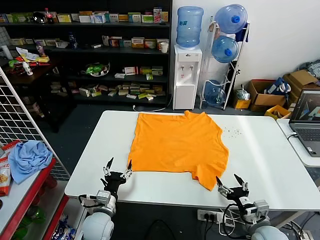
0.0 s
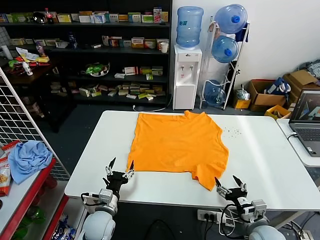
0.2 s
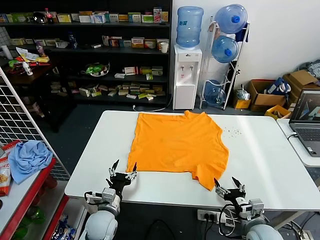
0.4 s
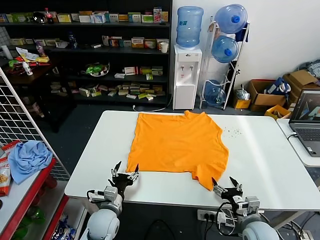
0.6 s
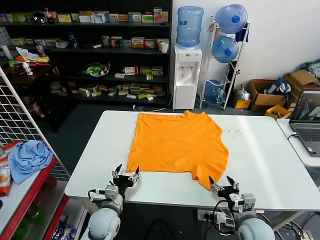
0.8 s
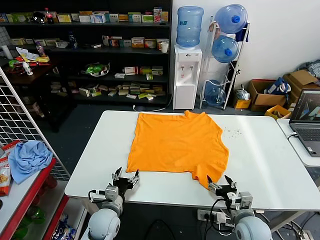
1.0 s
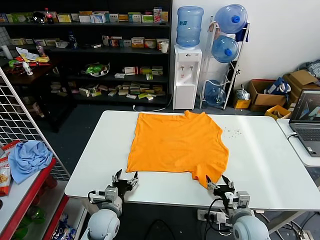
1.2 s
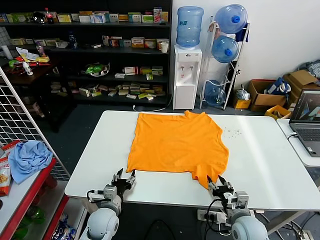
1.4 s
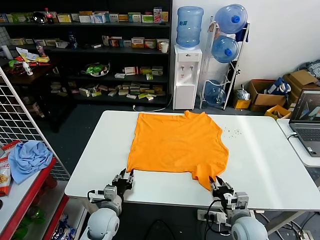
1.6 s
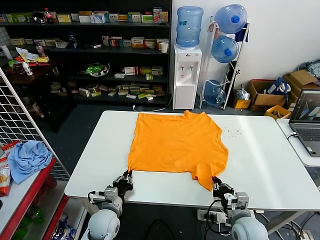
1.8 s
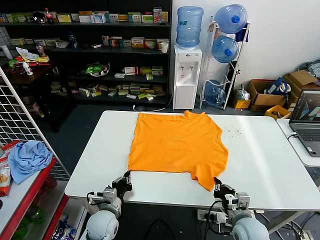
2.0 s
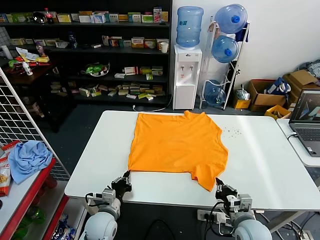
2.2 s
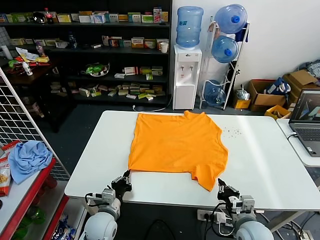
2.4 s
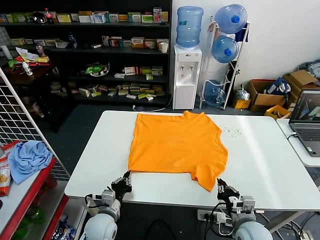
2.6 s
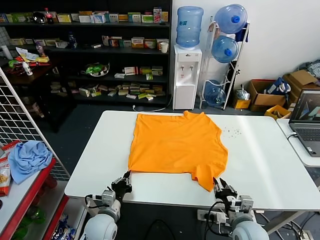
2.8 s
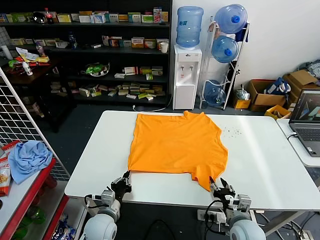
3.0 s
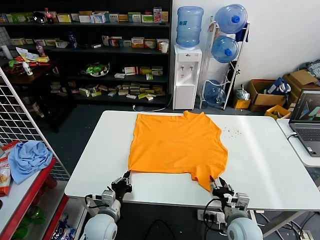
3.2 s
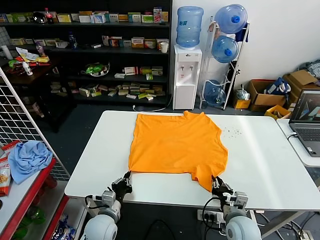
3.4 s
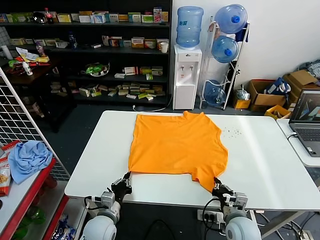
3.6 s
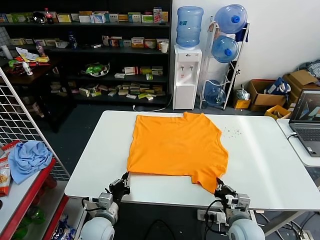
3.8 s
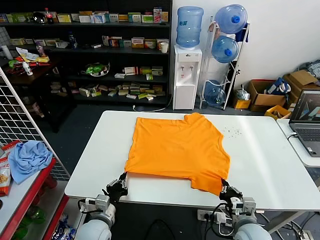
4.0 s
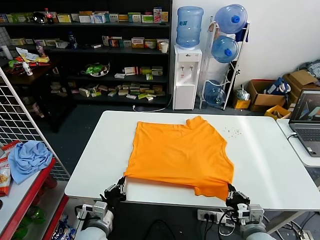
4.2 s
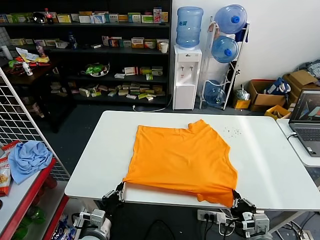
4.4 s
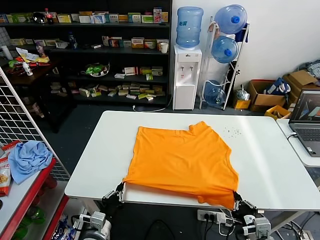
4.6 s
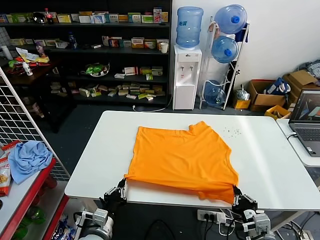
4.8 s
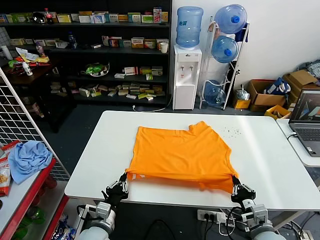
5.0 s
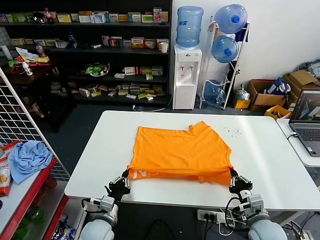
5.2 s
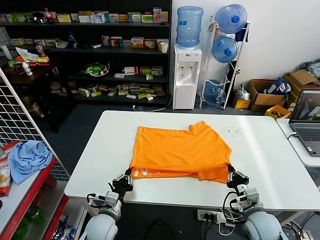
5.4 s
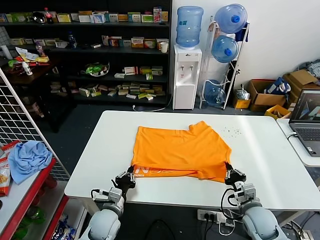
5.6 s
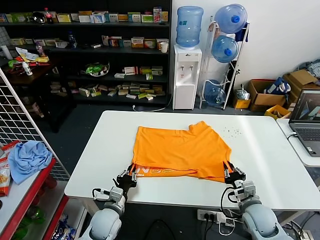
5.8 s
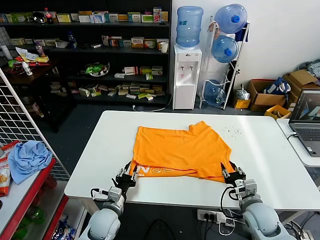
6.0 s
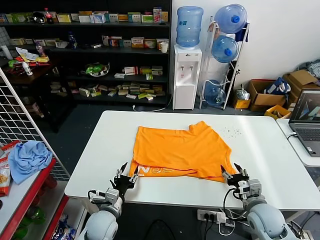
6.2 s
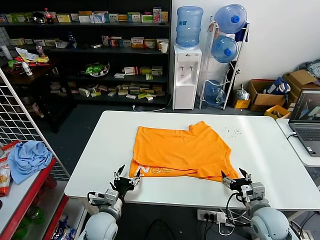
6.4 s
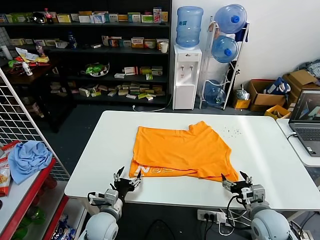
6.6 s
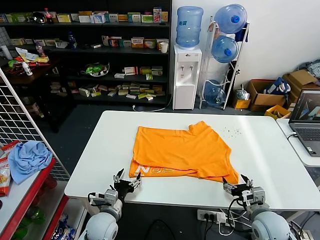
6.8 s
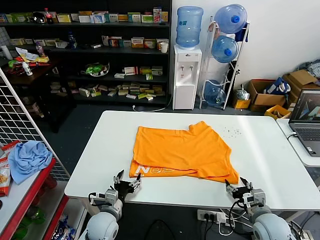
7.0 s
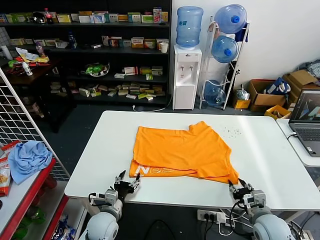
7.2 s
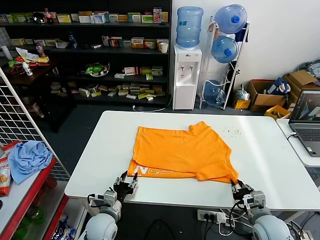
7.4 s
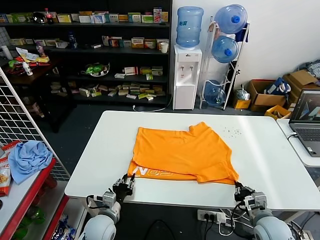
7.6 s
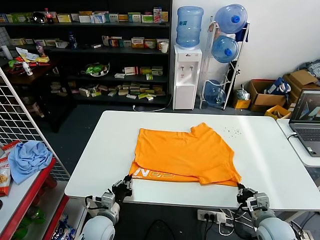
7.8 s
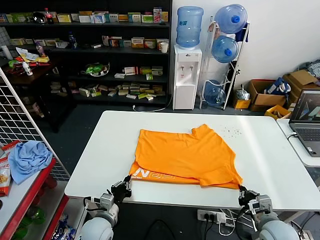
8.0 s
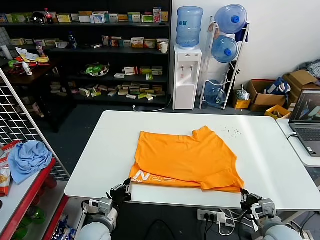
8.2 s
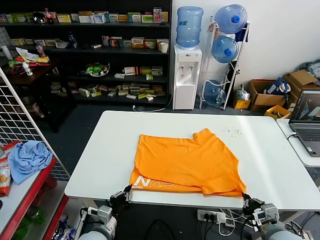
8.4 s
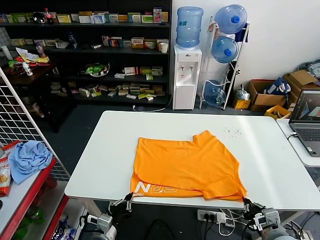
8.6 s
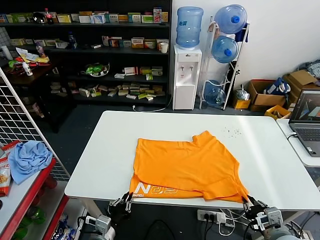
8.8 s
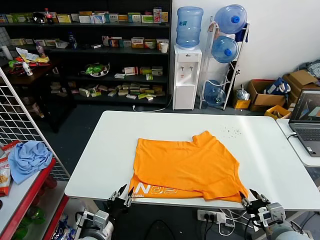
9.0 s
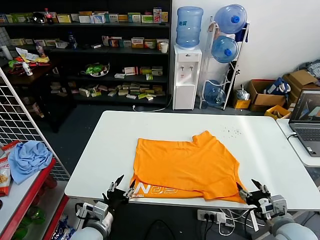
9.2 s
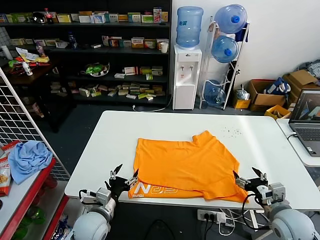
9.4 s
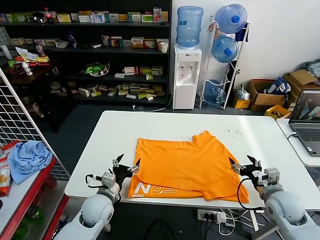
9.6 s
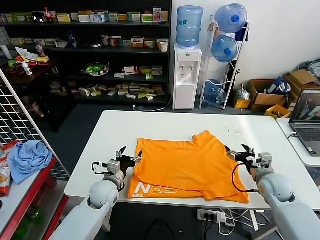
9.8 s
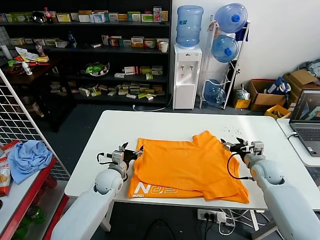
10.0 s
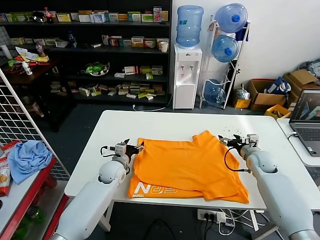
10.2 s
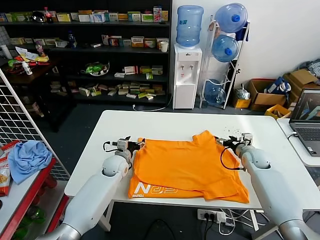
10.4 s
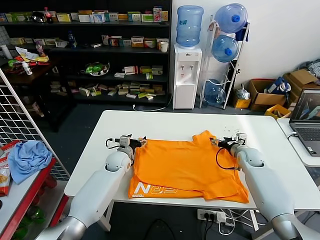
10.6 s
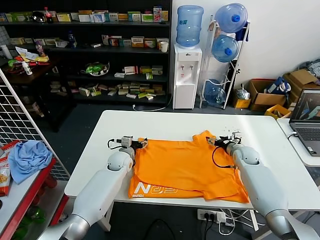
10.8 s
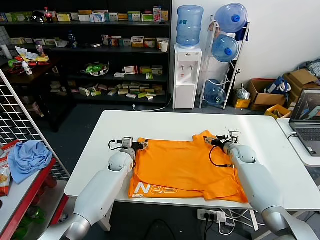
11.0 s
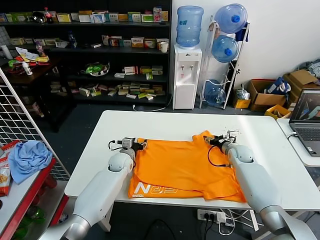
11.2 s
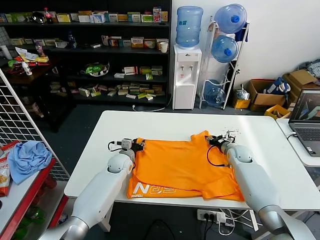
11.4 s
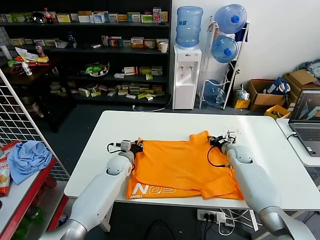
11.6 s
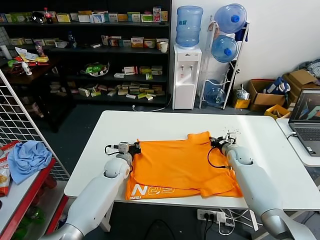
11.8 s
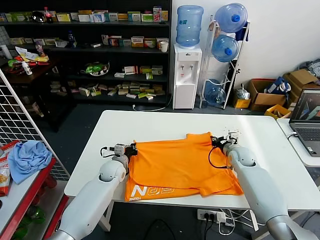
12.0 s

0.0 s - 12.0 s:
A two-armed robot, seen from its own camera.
Task of the whole recording: fold and organize the clothes.
Step, 0.0 s - 3.8 s: use both grippers simultaneously to clamp the lower edge of the clothing fabric.
Step, 4.2 s - 6.2 s: use both grippers to drag the lower edge of the fabric forward and fold it over the upper edge.
Step, 6.4 s - 9.2 s: Drag the clothes downward with both gripper.
Step, 9.4 s - 11.8 s: use both grippers simultaneously to clamp the upper edge of the clothing fabric.
1.6 s - 3.0 s: The right gripper opens its fingers; the left gripper closes up.
3.0 s - 4.4 s: The two grippers go some 10 cm backward. The right gripper closes.
4.4 s - 6.0 s: Both grippers travel together forward, about 10 cm. The left gripper opens its fingers; the right gripper opens up.
6.0 s - 7.6 s: The left gripper opens and closes again. Meanwhile the right gripper closes.
7.6 s - 9.0 s: The left gripper heads backward, covering roughly 10 cm, and closes and opens again. Meanwhile the right gripper goes about 10 cm upward and backward, and opens up.
9.0 s - 10.4 s: The grippers both shift forward by roughly 30 cm. The left gripper opens its fingers. The right gripper opens up.
10.4 s - 12.0 s: The left gripper closes. Meanwhile the right gripper closes.

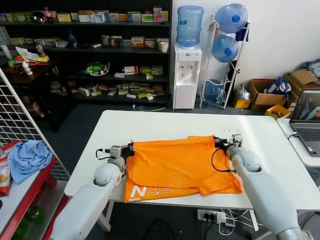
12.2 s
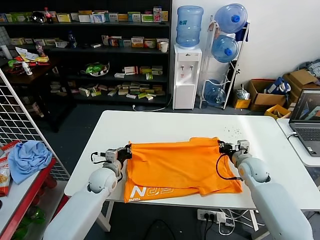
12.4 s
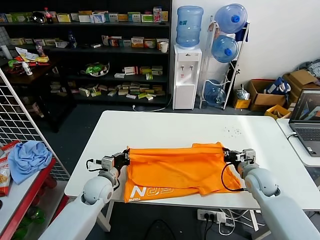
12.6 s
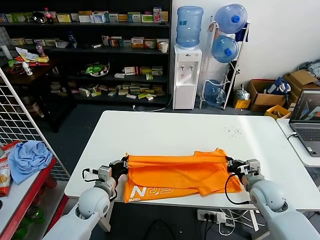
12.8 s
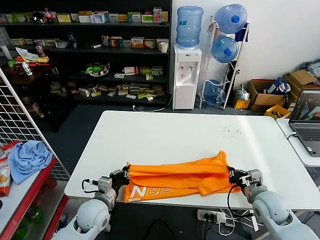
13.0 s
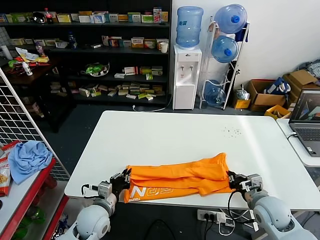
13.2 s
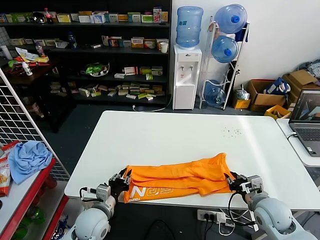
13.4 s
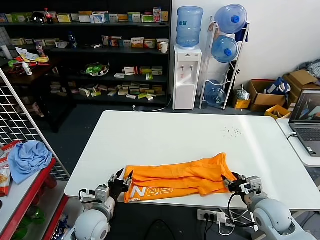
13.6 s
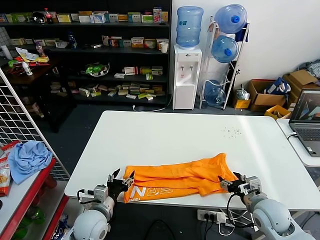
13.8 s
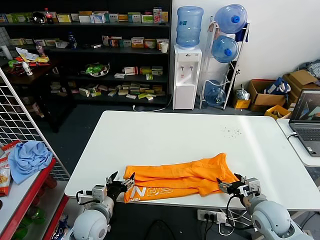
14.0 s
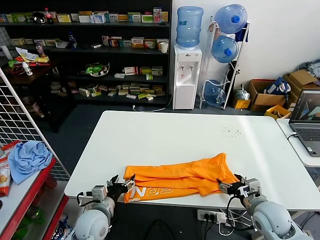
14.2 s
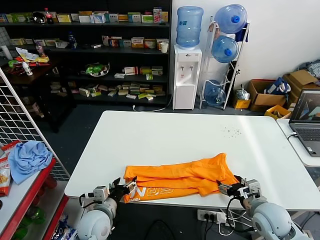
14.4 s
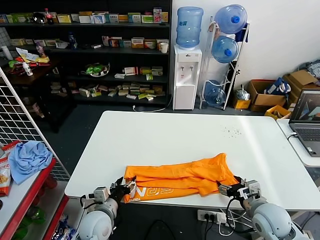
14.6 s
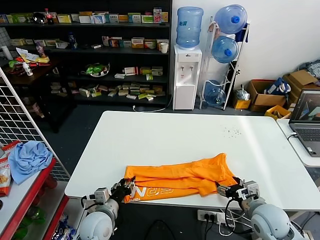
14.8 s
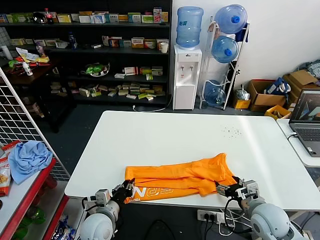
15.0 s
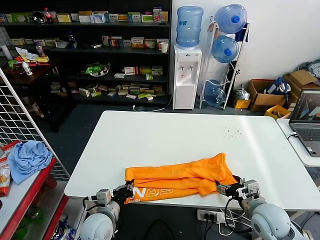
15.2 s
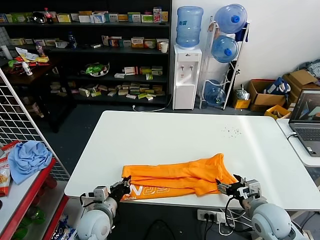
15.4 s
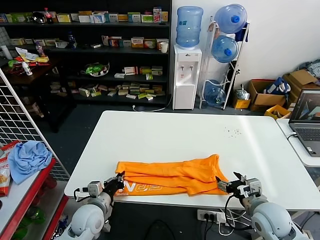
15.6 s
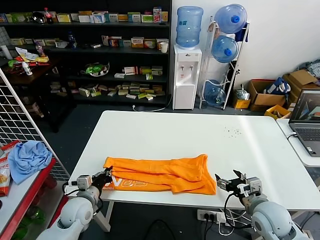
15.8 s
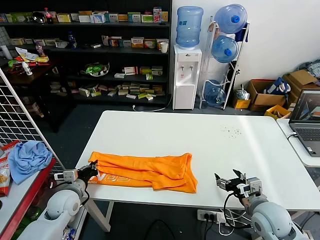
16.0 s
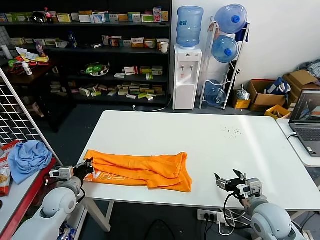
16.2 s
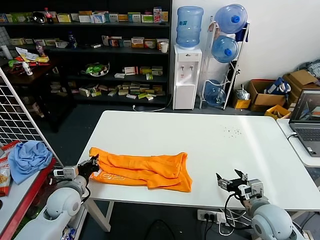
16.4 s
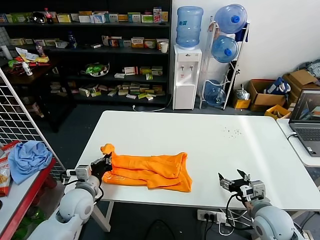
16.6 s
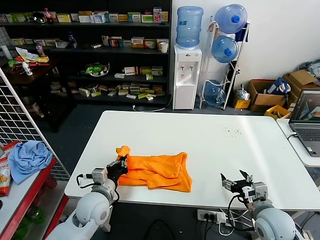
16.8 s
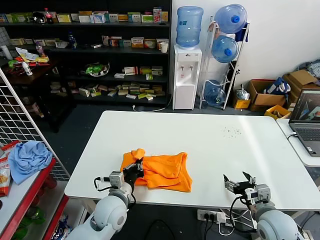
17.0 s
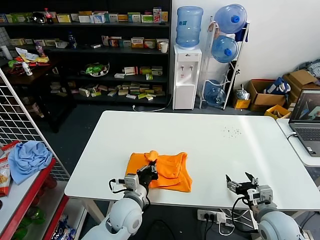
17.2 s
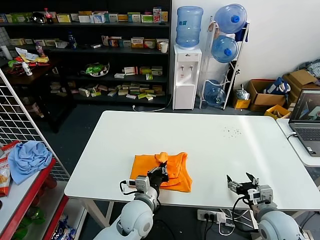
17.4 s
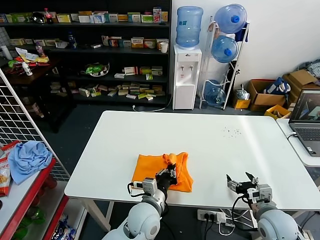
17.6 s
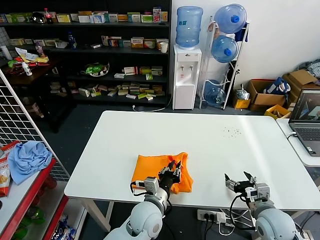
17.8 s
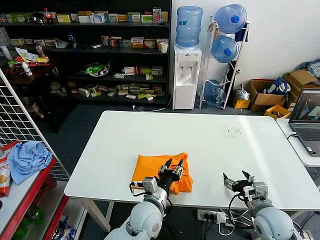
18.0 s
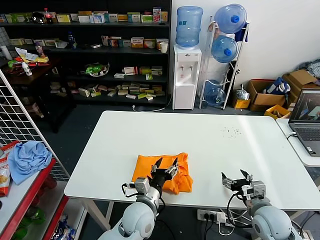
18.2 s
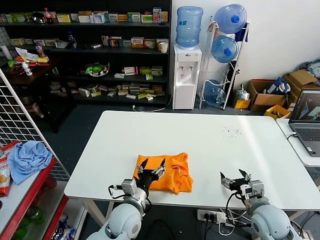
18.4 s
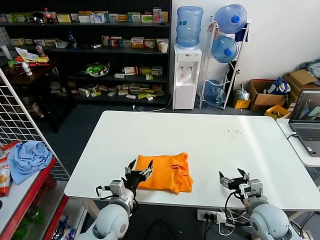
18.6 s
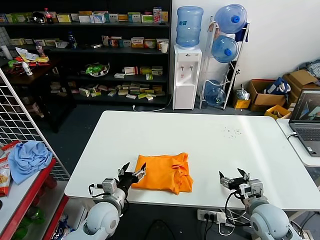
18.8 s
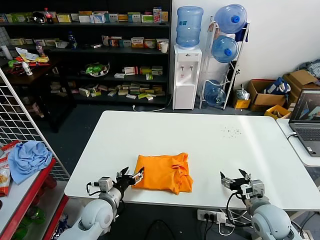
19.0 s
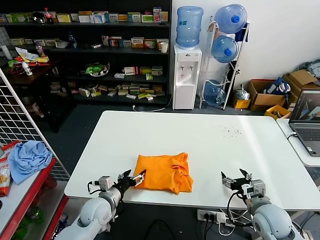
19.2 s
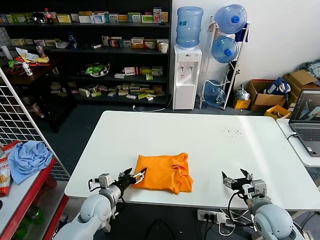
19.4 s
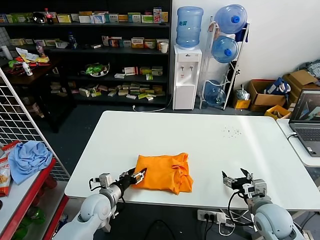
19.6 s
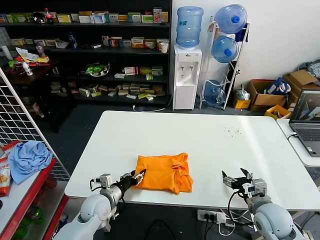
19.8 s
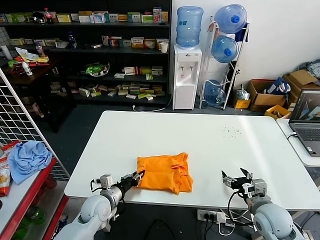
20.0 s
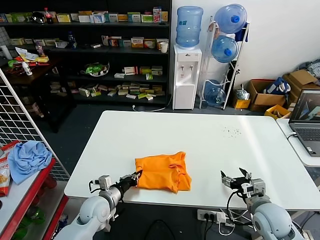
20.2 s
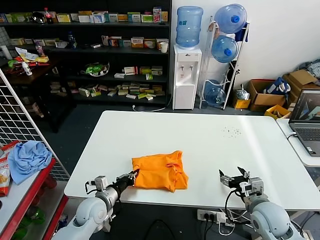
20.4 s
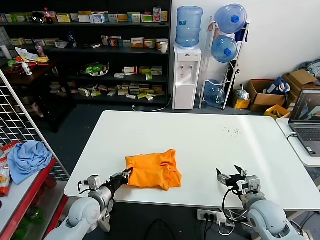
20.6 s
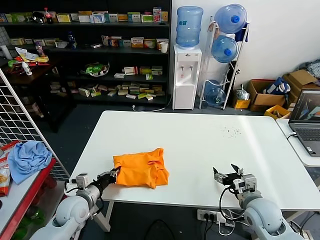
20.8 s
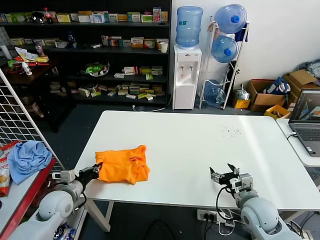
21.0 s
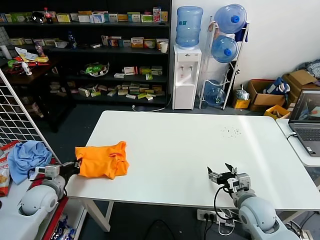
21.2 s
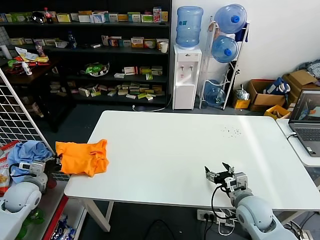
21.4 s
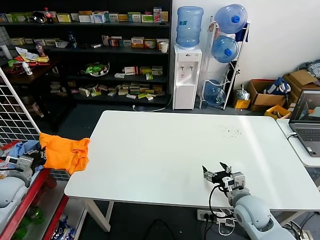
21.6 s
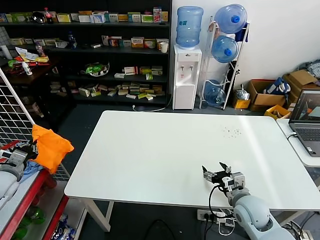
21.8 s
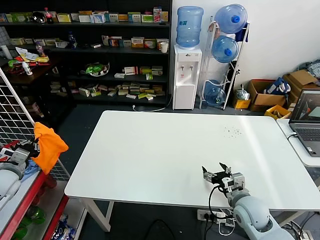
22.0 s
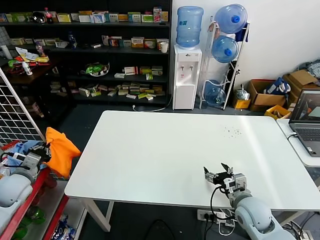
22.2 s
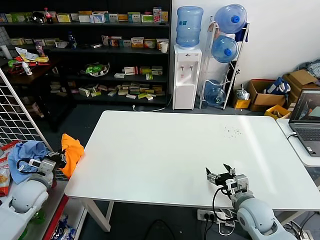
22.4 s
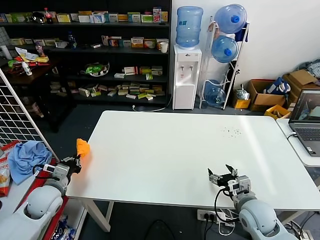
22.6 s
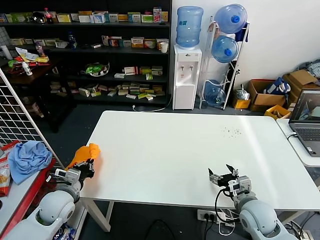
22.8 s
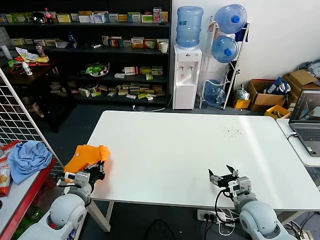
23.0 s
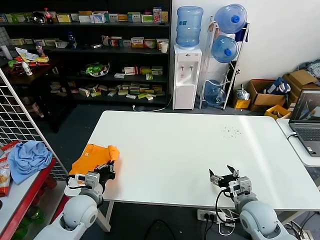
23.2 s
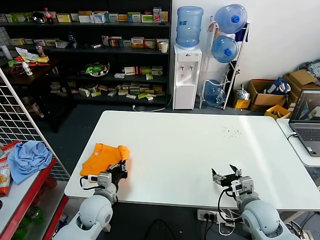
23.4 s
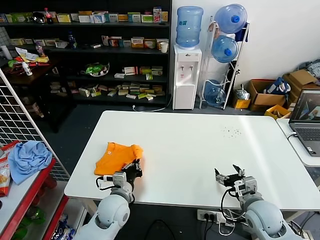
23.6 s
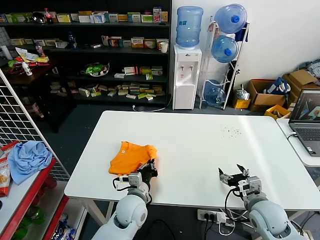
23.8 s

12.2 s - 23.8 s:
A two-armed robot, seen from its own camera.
Task of the whole recording: fold and organize the clothes.
Step, 12.2 s - 13.8 s: use both grippers to drag the upper edge of the fabric backward and fold it over the lower edge.
Step, 14.0 s - 15.4 s: use the left gripper to clamp the left edge of the fabric.
Step, 15.6 s - 18.2 s: use the left gripper to drag the left edge of the fabric to the left and folds it over the right edge.
12.2 s - 13.6 s: The two grippers go about 20 cm backward. The left gripper opens up; the right gripper opens up.
13.6 s - 15.0 s: The right gripper opens. Meanwhile the left gripper opens, then closes once more.
15.0 s - 16.6 s: The left gripper heads to the left, upward and forward, covering some 10 cm, and closes.
16.6 s - 18.0 s: The left gripper is displaced to the right by approximately 25 cm, and opens its fingers.
18.0 s - 19.4 s: The left gripper is displaced to the left by roughly 20 cm, and opens.
19.4 s - 21.0 s: The left gripper shifts some 10 cm to the left, and closes its fingers.
21.0 s - 22.4 s: The left gripper moves to the left and upward, approximately 10 cm.
22.4 s - 23.8 s: The left gripper heads to the right, covering roughly 30 cm.
